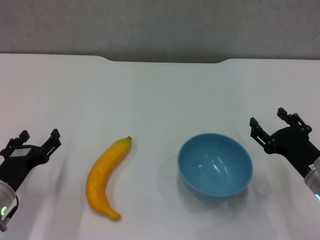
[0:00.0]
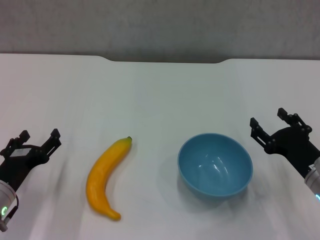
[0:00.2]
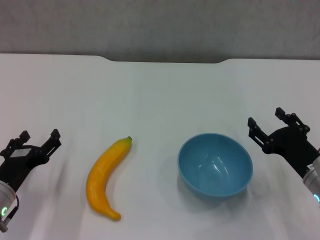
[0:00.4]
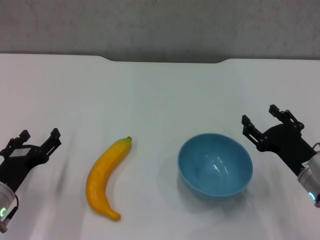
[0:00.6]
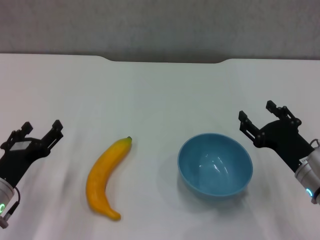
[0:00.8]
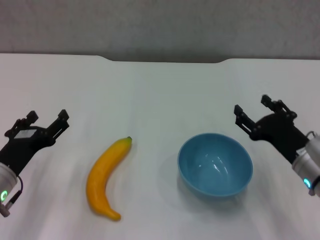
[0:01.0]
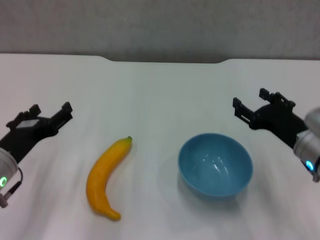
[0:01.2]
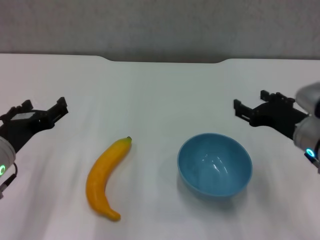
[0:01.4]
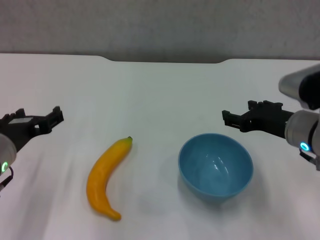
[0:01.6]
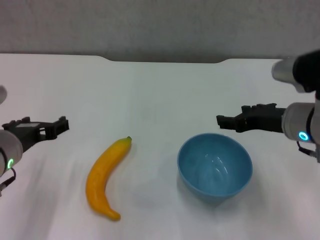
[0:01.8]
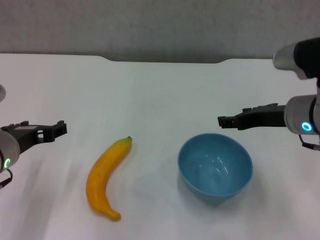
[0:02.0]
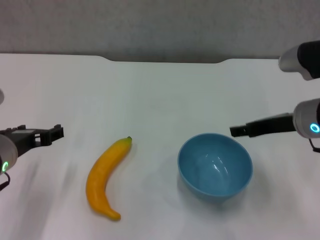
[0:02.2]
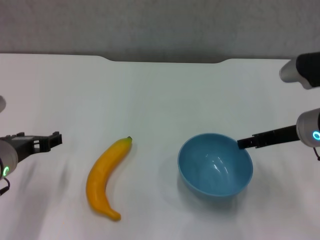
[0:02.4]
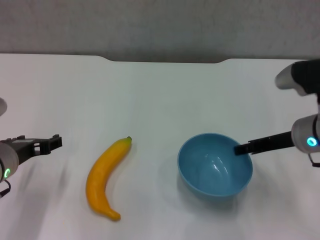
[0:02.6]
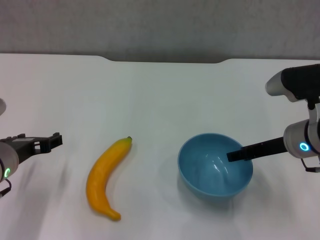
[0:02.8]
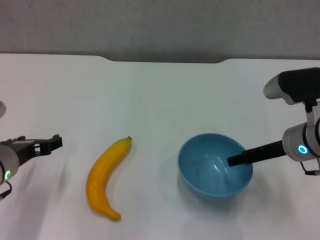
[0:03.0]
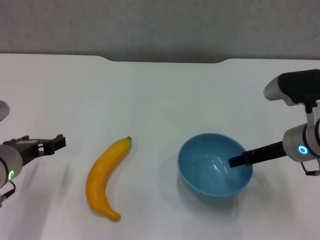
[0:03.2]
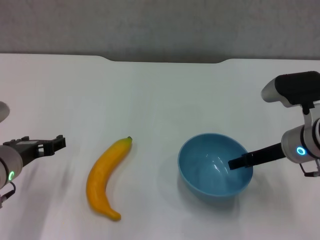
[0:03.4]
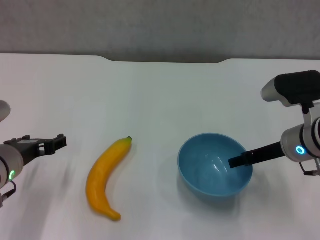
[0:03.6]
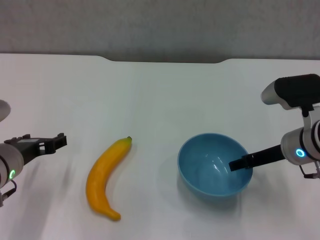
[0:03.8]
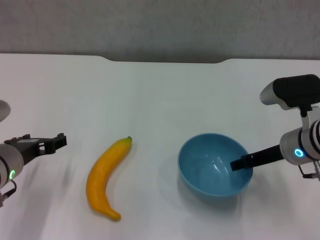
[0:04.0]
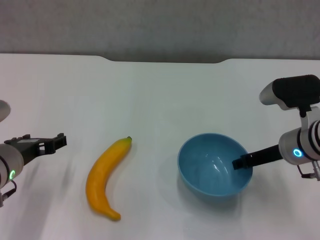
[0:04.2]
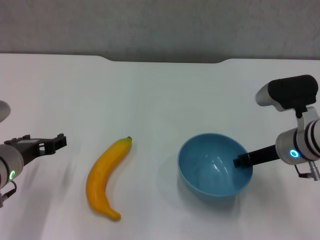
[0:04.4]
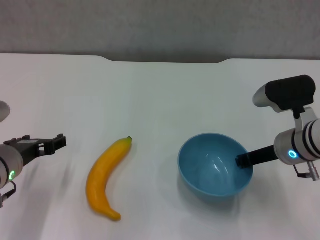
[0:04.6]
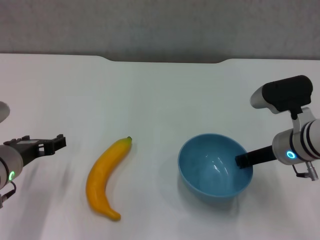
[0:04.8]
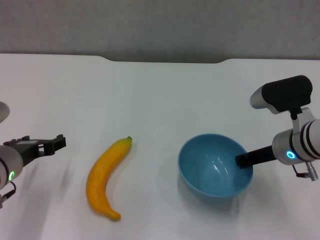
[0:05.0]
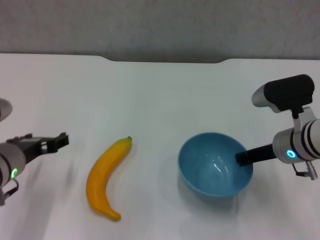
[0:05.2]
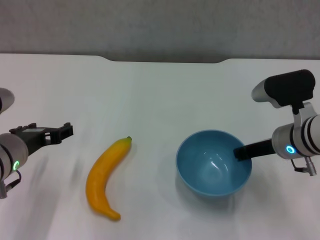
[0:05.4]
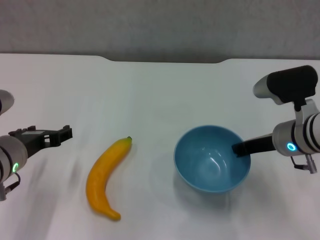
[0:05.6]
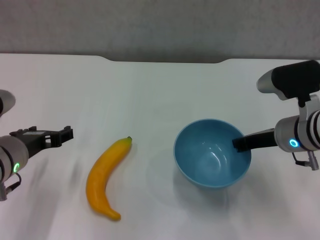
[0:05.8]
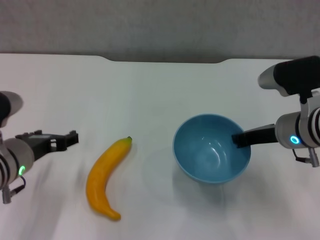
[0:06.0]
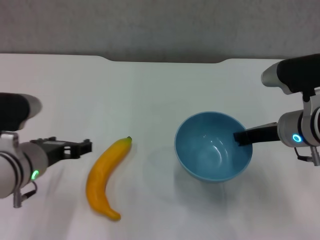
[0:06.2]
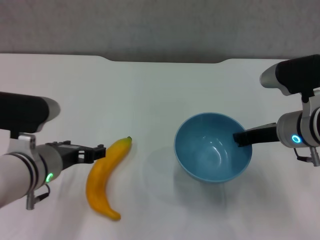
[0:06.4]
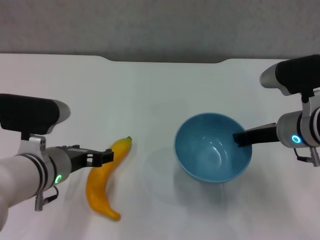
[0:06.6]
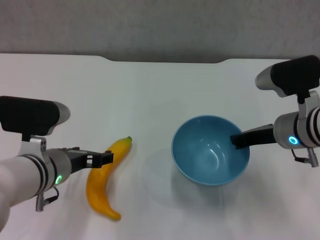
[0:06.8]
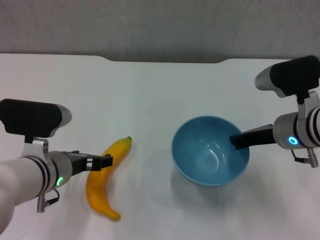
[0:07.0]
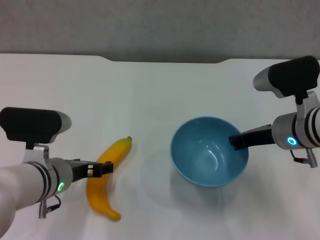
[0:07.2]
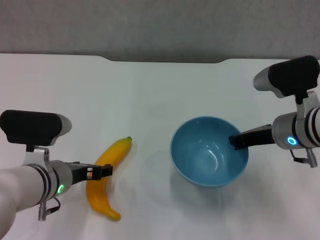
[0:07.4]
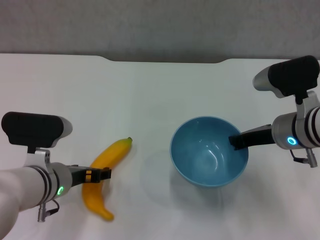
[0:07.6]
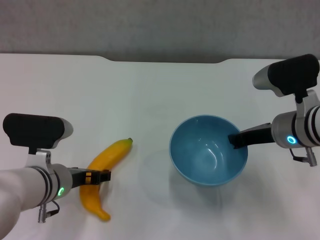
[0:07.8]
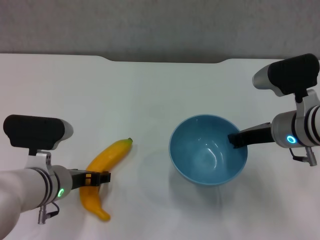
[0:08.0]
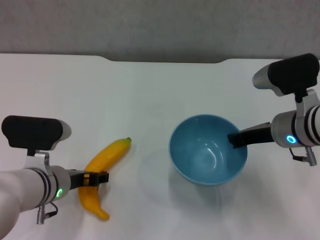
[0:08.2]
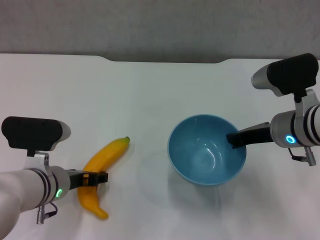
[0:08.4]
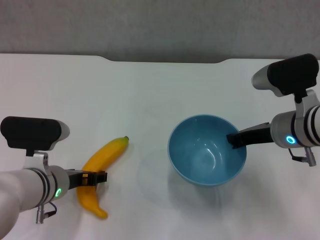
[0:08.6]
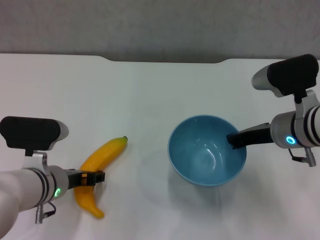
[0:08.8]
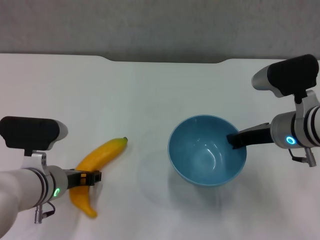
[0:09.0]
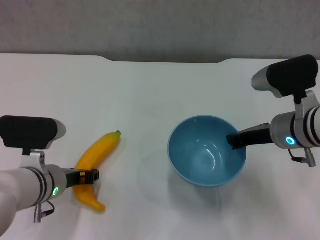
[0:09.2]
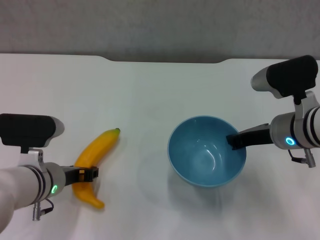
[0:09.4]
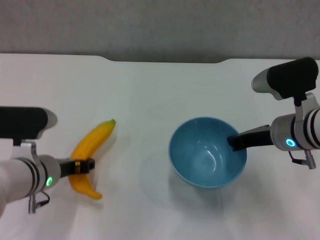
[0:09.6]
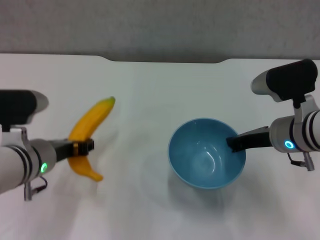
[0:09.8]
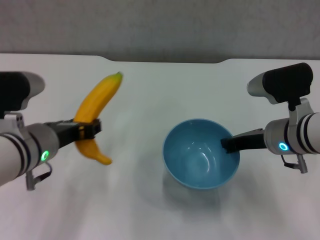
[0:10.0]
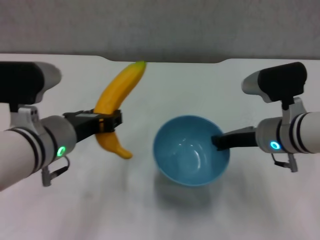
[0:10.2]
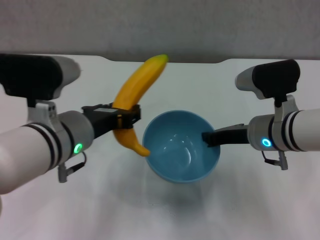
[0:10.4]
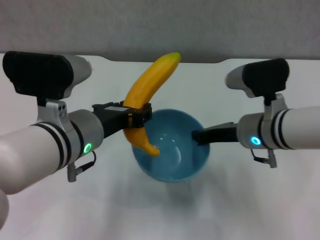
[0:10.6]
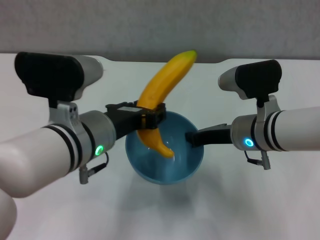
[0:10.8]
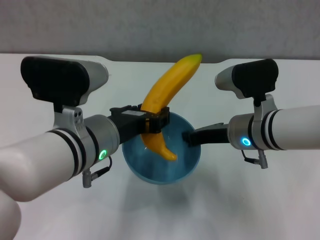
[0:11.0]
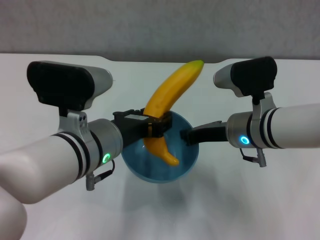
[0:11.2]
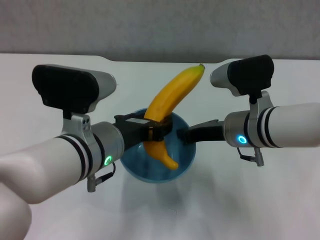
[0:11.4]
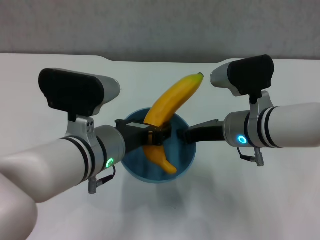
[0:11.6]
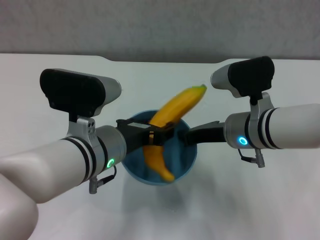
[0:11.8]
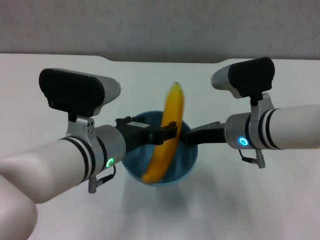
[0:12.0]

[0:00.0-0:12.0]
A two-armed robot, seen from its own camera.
Step, 0:00.0 to 0:05.0: Grasp the blue bowl with right gripper.
Step, 0:05.4 to 0:06.0: Lift the blue bowl with right gripper.
Step, 0:06.2 to 0:09.0: Grasp the banana with left gripper.
Step, 0:09.2 to 0:12.0: Place the banana in the blue bowl with left gripper.
0:00.0 to 0:01.6: The grippers both shift upward by some 10 cm.
0:03.0 to 0:04.4: The right gripper closes up.
0:04.4 to 0:06.0: The right gripper closes.
0:06.0 to 0:07.6: The left gripper moves about 5 cm.
0:07.6 to 0:09.0: The left gripper closes its fingers.
0:09.0 to 0:10.4: The left gripper moves upward and to the right, some 10 cm, and closes up.

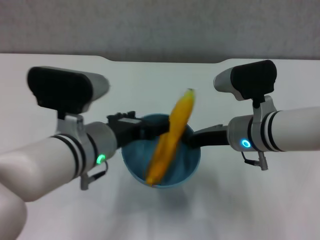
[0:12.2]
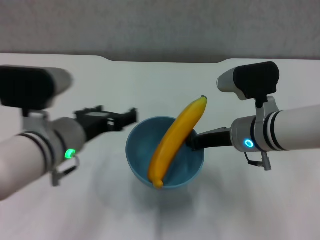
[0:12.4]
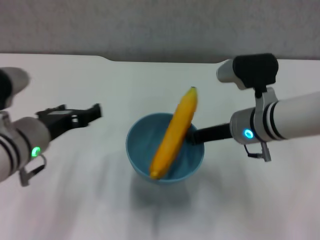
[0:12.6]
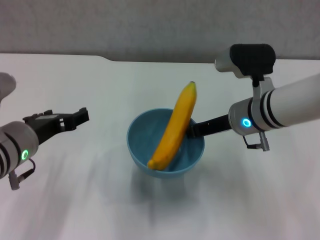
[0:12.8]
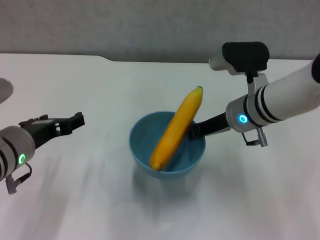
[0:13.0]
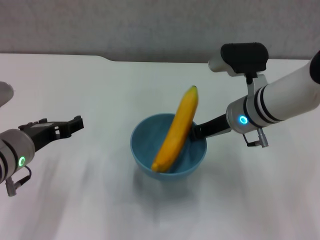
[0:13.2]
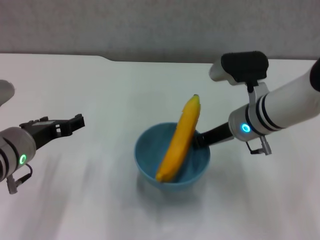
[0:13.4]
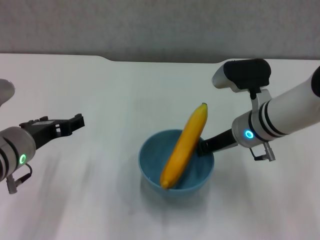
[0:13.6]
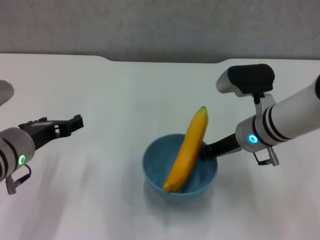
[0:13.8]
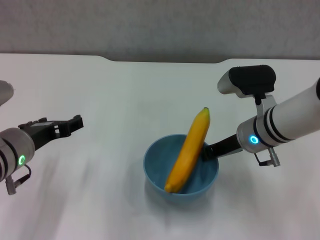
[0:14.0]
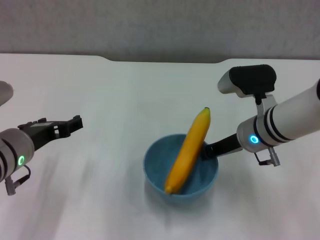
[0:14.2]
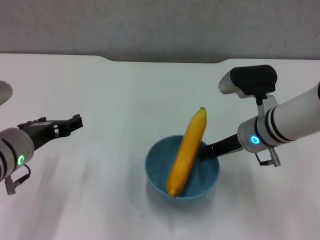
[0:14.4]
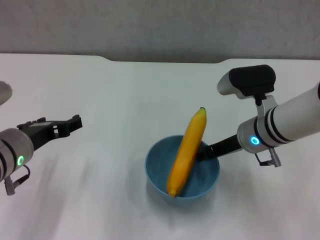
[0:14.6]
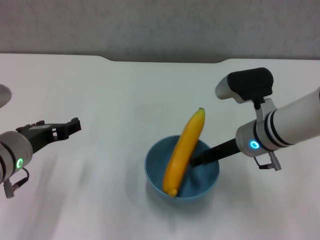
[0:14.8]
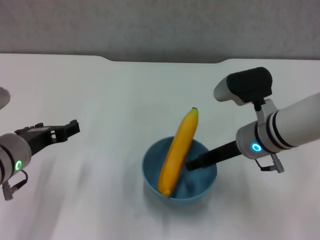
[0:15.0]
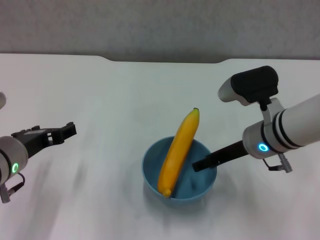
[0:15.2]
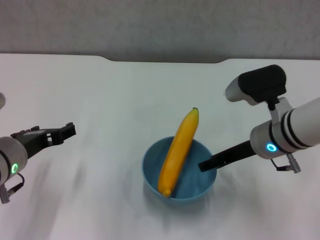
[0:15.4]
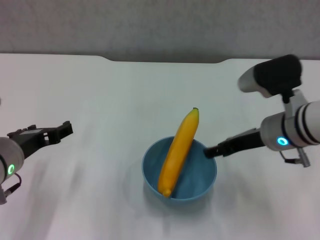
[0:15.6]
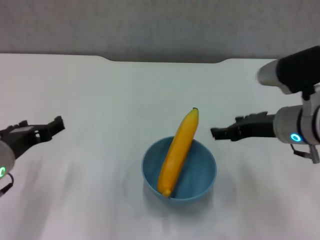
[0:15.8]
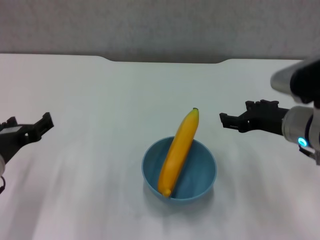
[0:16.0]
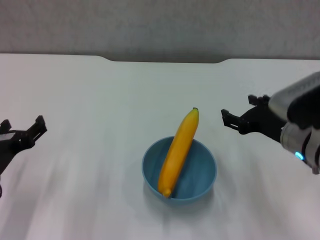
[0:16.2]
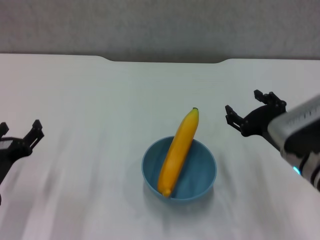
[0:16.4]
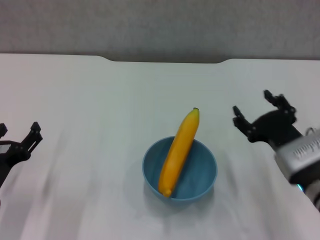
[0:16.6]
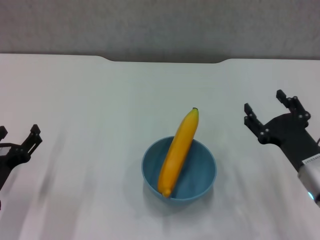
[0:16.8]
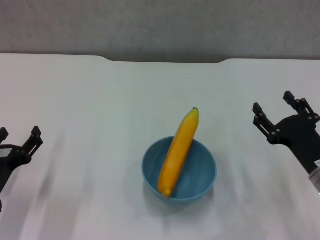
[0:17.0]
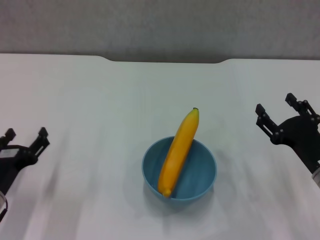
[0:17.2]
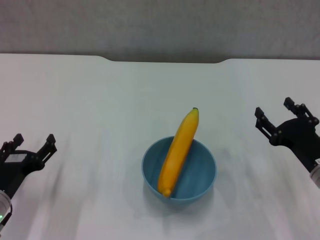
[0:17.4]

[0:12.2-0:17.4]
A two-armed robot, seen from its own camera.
Step, 0:12.2 to 0:15.4: Place the bowl on the table with right gripper.
0:12.2 to 0:14.0: The left gripper shifts roughly 10 cm to the left.
0:14.0 to 0:15.6: The right gripper ends up some 5 cm from where it was, and opens its fingers.
0:15.6 to 0:17.4: The right gripper moves downward, to the right and backward, about 15 cm; the left gripper travels downward by some 10 cm.
